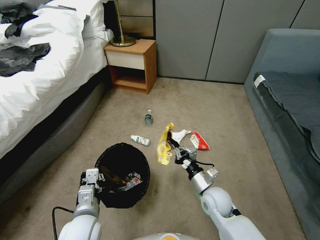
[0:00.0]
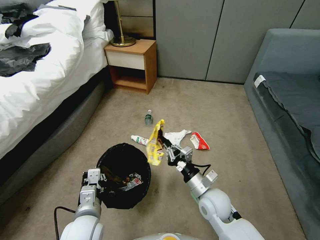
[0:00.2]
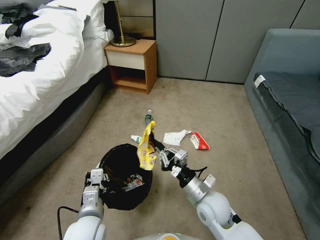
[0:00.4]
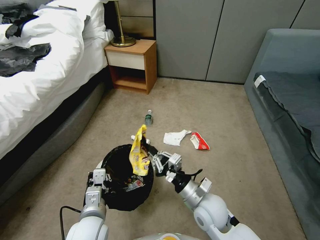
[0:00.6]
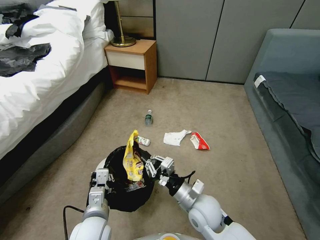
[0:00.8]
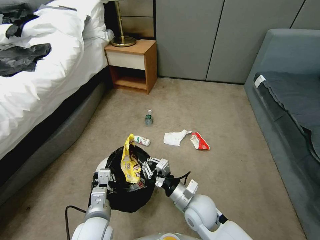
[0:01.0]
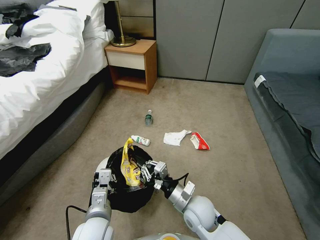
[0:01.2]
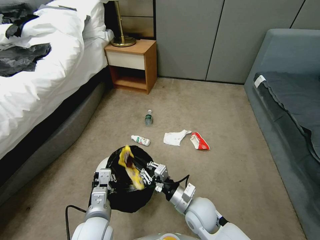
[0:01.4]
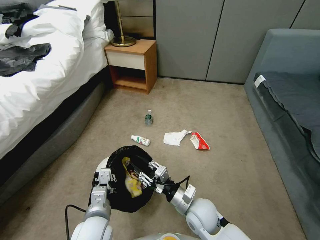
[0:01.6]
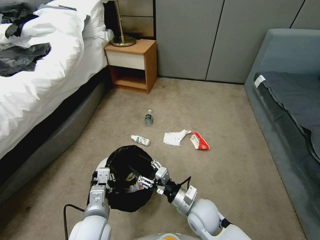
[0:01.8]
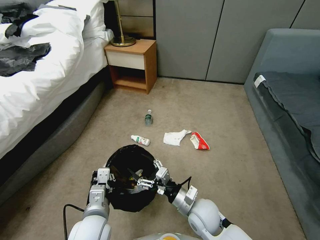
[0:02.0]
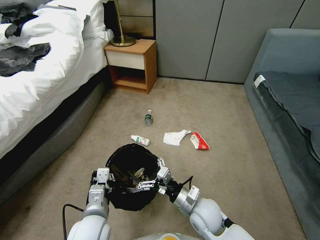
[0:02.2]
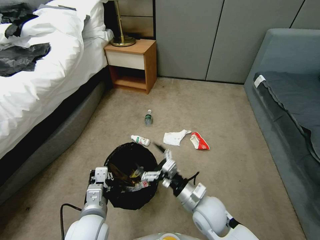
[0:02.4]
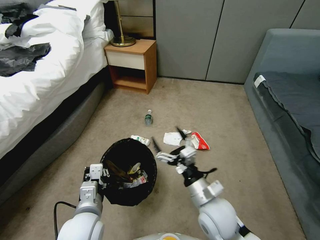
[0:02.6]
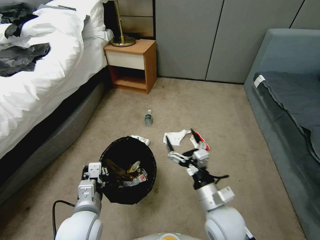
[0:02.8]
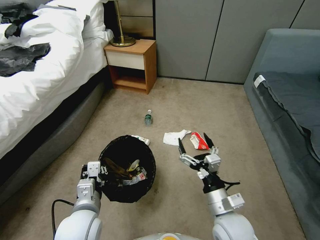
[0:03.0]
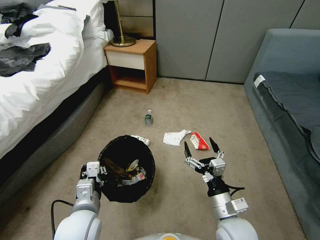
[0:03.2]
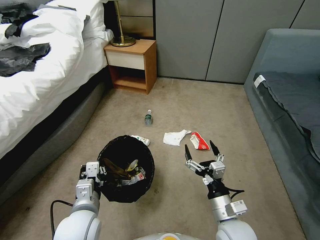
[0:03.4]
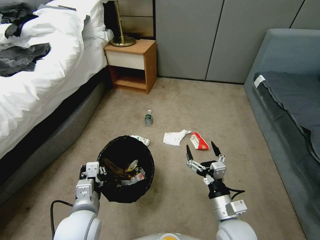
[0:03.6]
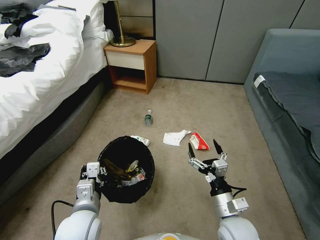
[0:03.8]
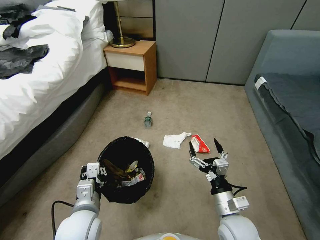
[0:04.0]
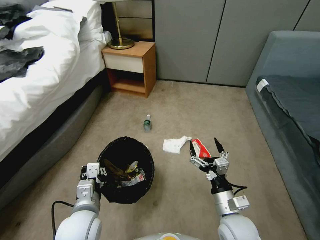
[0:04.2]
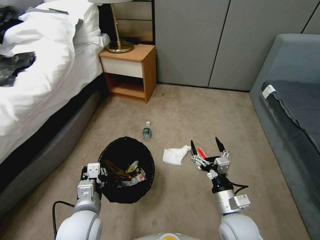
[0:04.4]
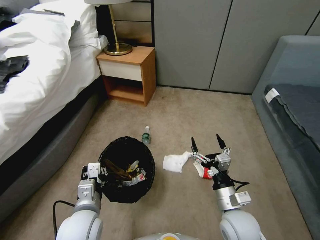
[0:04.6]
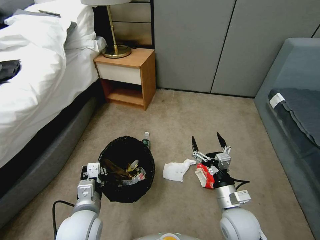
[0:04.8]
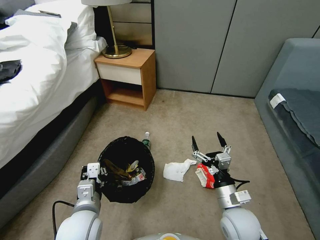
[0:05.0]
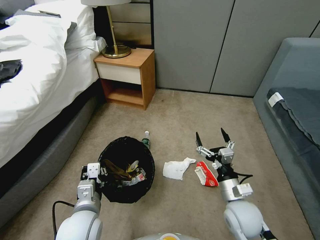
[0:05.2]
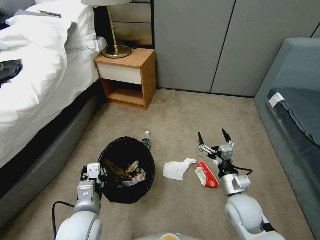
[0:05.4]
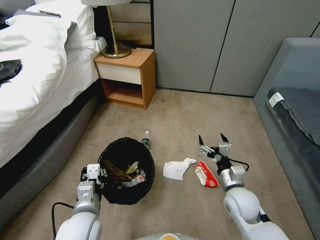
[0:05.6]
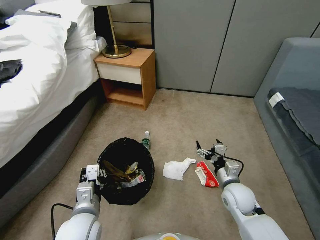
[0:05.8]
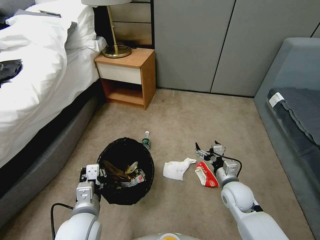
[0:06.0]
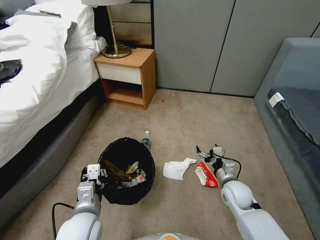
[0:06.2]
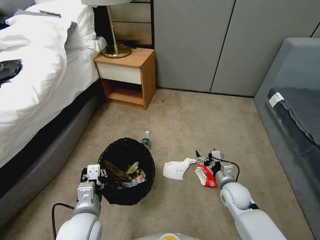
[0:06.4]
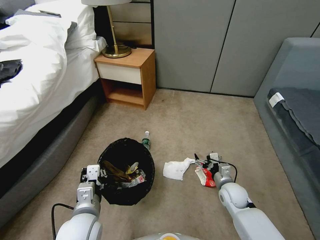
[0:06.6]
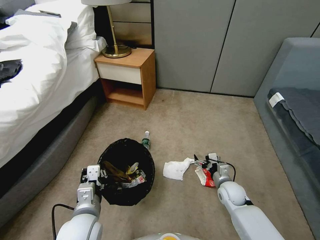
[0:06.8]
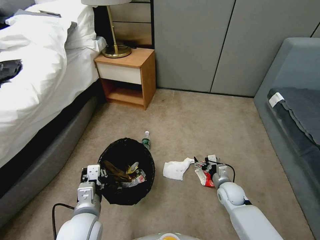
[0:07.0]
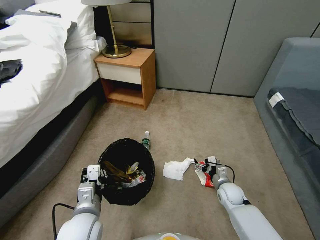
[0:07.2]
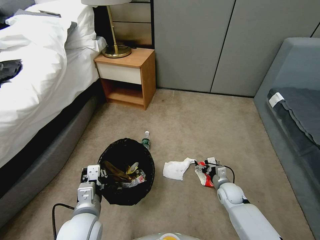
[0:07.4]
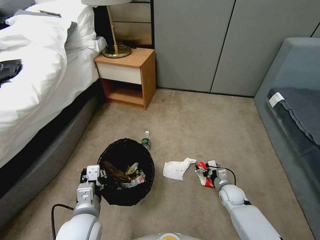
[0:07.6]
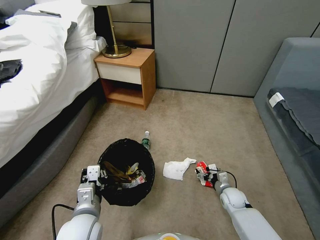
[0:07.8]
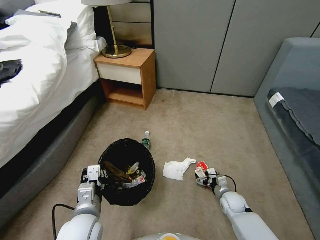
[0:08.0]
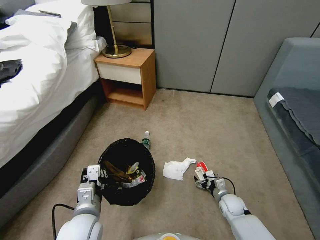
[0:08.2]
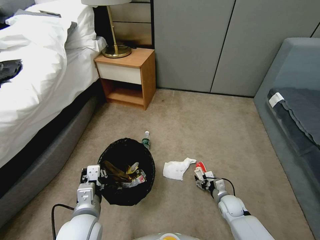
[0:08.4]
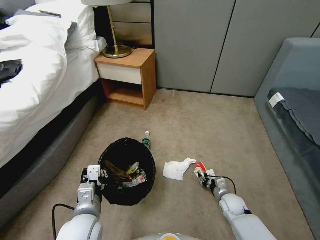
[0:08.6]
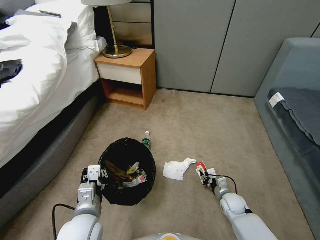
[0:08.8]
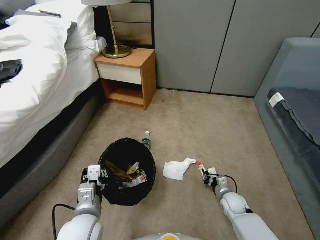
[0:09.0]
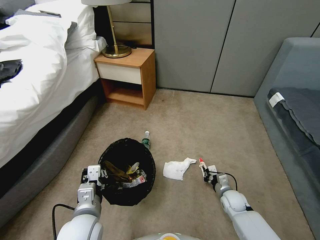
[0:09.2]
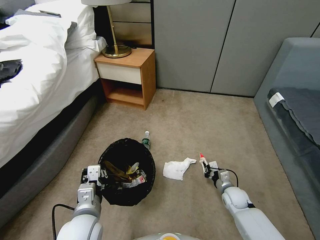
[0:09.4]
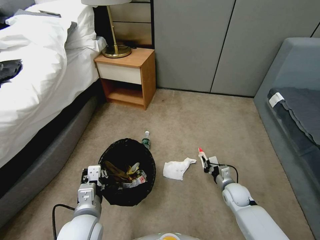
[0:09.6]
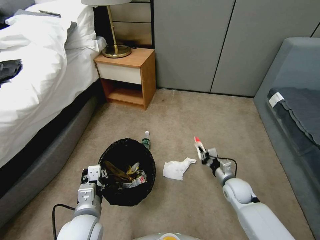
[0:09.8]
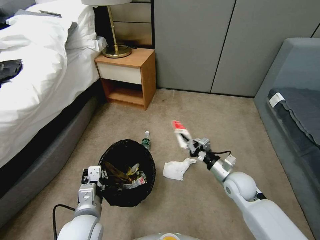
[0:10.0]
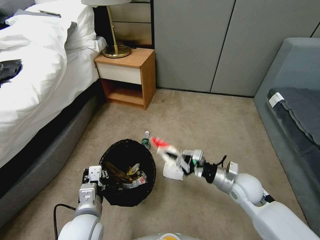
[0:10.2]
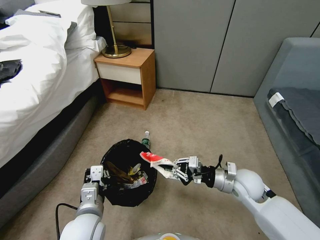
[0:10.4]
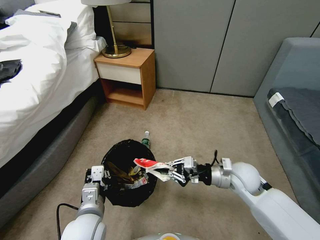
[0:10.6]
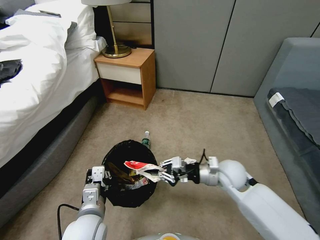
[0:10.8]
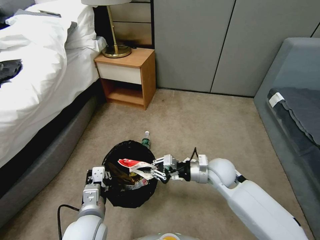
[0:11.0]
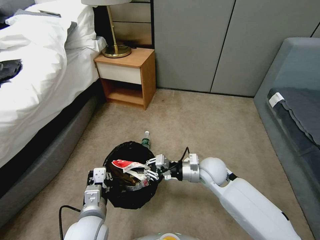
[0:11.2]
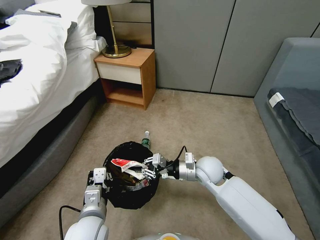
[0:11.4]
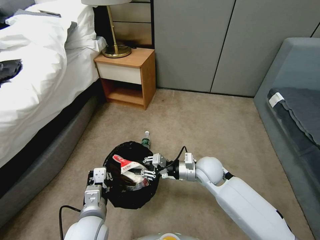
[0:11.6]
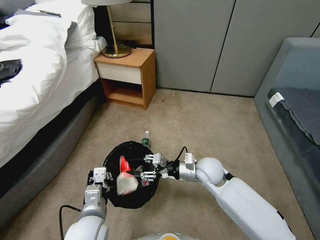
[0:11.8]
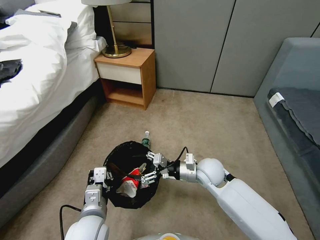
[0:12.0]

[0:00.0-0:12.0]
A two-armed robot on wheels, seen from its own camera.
Task of the whole recording: Pick up the trash bin, then pick up the garbage from the floor and place it into the trash bin.
0:00.0 to 0:01.6: The right gripper heads to the left, covering about 5 cm.
0:01.6 to 0:03.0: The right gripper travels upward, to the right and backward by some 10 cm, and opens its fingers.
0:04.4 to 0:06.0: The right gripper goes about 10 cm forward.
0:06.0 to 0:07.6: The right gripper goes roughly 15 cm downward.
0:07.6 to 0:09.0: The right gripper closes up.
0:09.0 to 0:10.4: The right gripper goes some 20 cm upward.
0:10.4 to 0:12.0: The right gripper moves to the left, roughly 10 cm, and opens up.

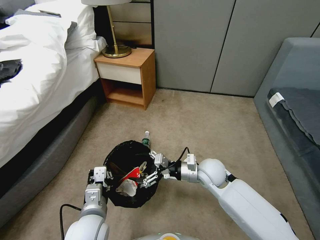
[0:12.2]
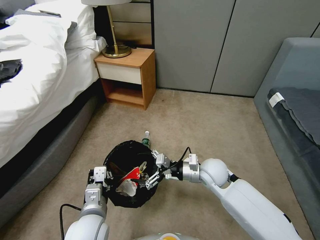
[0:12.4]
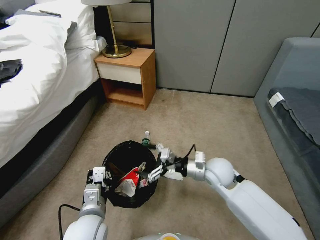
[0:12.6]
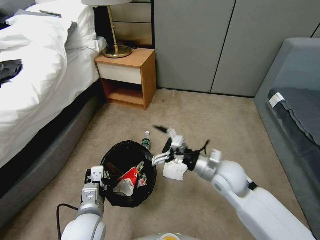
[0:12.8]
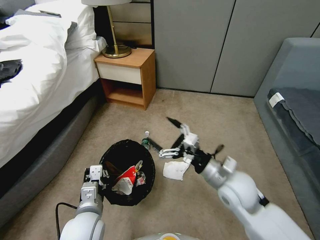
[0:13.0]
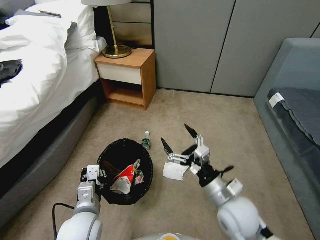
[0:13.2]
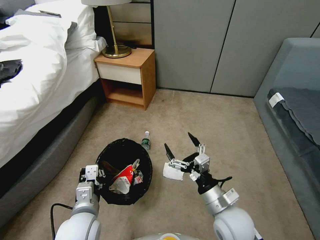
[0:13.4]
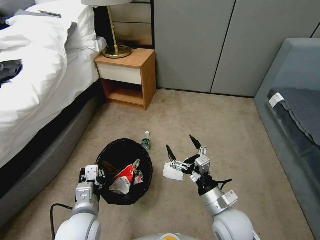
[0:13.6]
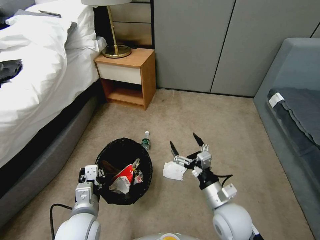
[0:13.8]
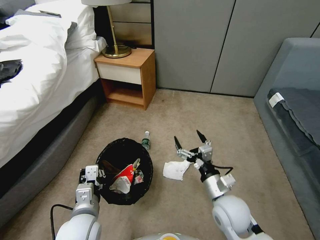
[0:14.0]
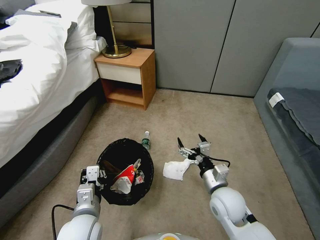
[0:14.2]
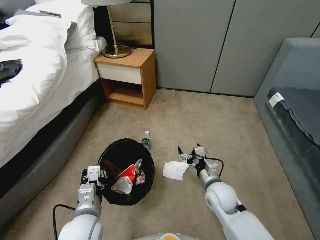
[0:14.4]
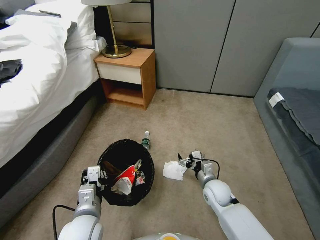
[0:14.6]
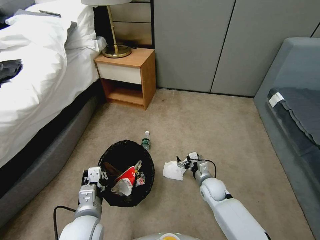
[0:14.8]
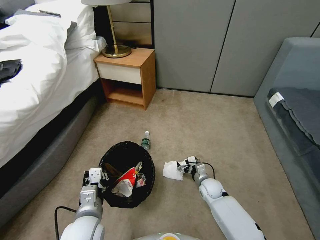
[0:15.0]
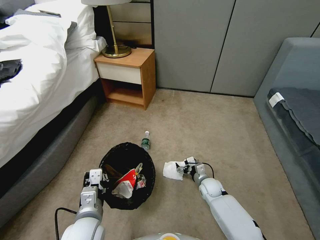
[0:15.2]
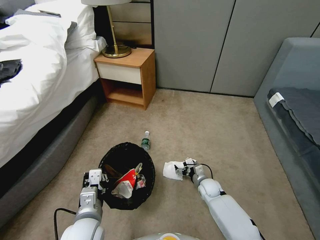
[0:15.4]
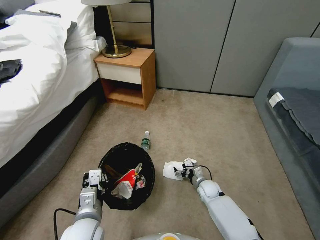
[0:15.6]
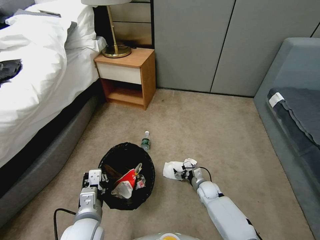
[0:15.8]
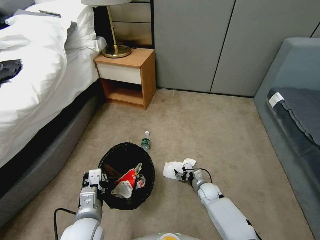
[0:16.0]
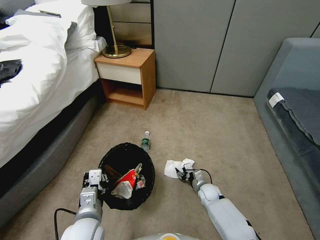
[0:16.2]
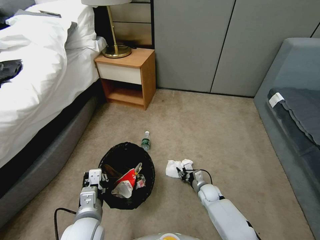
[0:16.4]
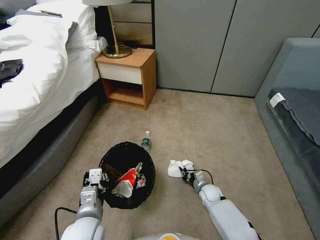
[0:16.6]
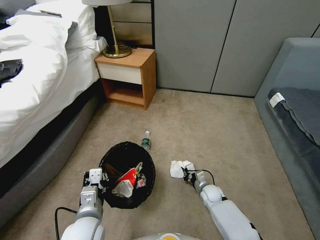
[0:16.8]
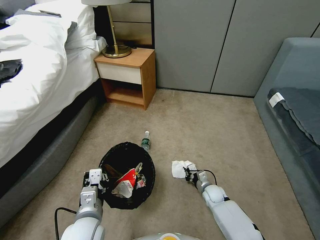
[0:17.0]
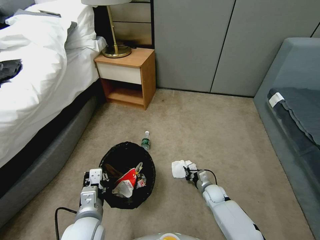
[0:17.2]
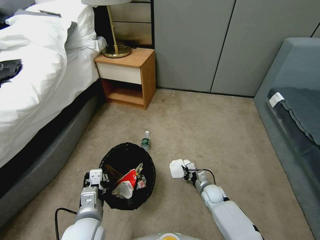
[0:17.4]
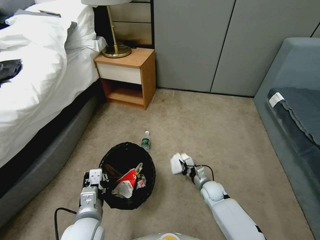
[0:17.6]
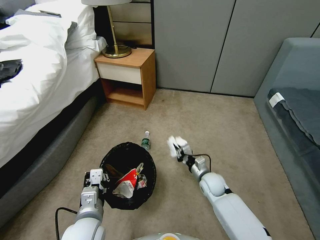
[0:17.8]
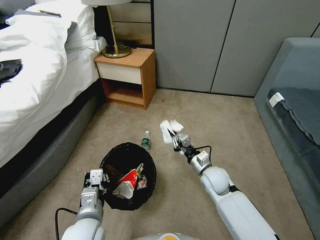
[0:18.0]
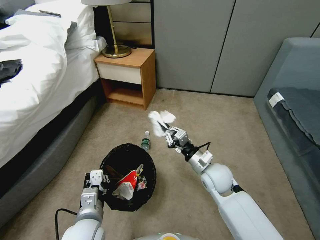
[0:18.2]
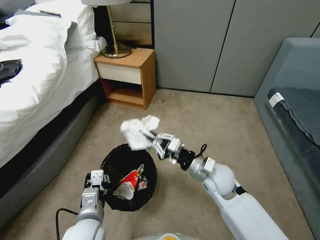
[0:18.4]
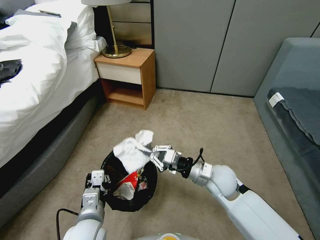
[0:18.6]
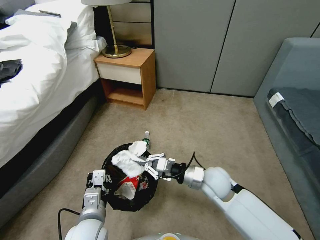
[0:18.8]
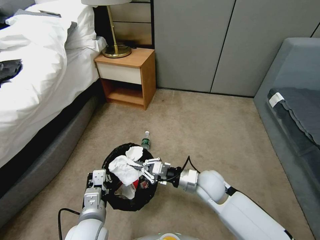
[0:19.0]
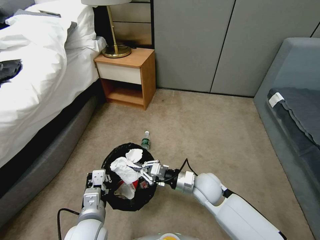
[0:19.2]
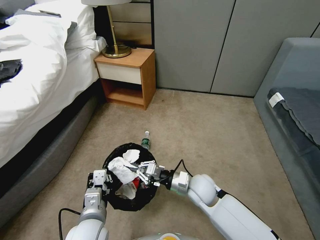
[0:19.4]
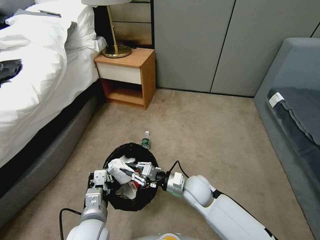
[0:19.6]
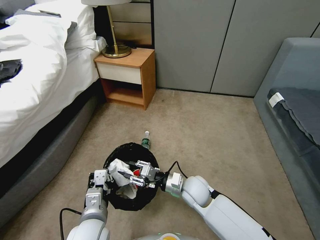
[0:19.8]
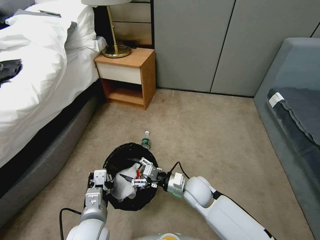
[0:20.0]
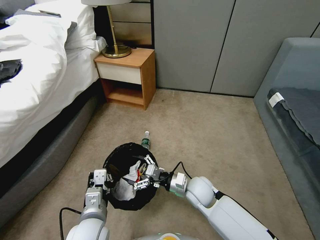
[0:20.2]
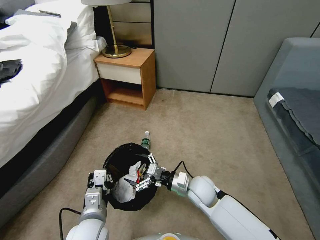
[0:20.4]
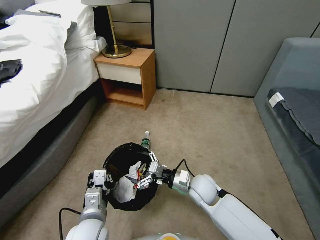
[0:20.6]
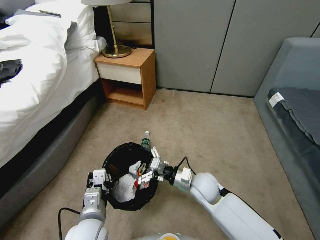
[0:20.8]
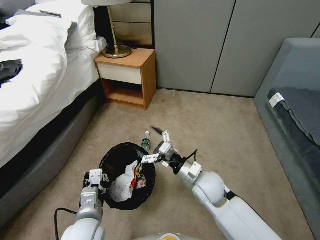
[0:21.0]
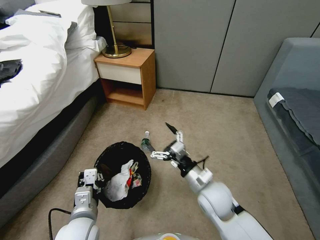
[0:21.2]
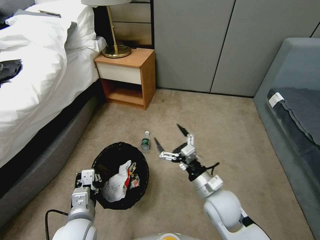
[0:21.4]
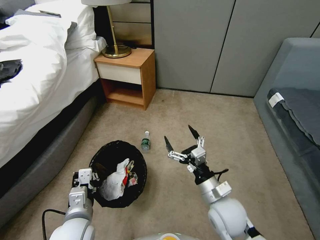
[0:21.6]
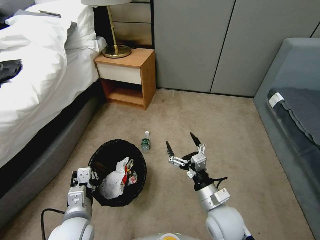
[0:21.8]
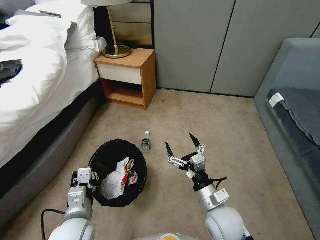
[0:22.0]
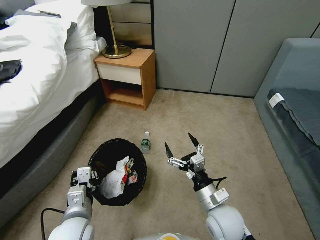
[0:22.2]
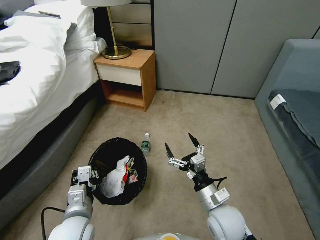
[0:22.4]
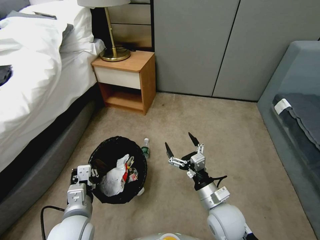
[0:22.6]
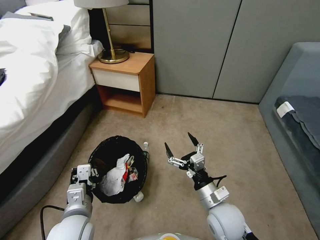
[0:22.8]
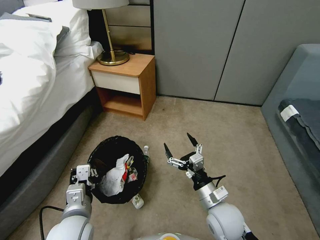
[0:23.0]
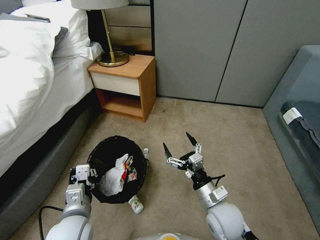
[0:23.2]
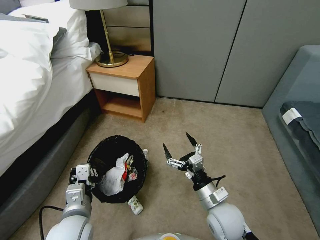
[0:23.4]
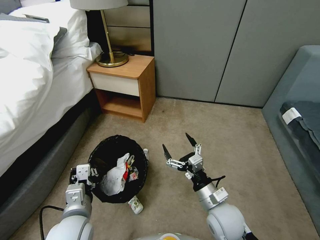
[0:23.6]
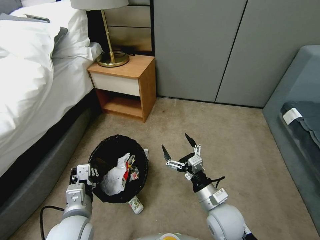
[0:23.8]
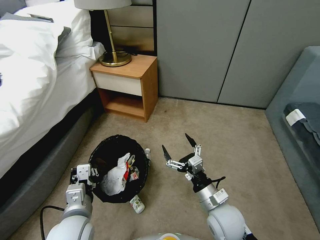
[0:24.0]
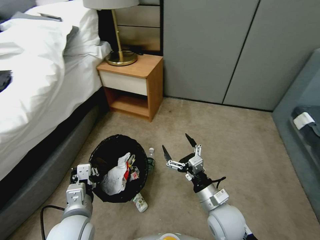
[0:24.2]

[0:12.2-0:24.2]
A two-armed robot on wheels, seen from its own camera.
Task of the whole recording: Pick up the trash bin, then pick up the garbage from the floor and place it into the trash bin.
0:12.2 to 0:13.8: The right gripper goes roughly 15 cm backward.
0:13.8 to 0:15.2: The right gripper moves downward and forward, roughly 25 cm.
0:15.2 to 0:16.6: The right gripper closes.
0:16.6 to 0:18.2: The right gripper travels upward by some 25 cm.
0:18.2 to 0:19.8: The right gripper heads downward and to the left, covering roughly 10 cm, and opens up.
0:19.8 to 0:21.2: The right gripper travels upward by roughly 5 cm, and opens its fingers.
0:21.2 to 0:22.6: The right gripper moves backward, roughly 5 cm.
